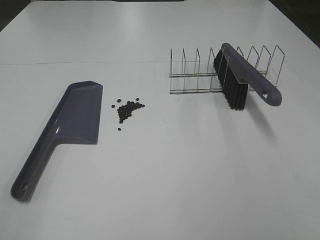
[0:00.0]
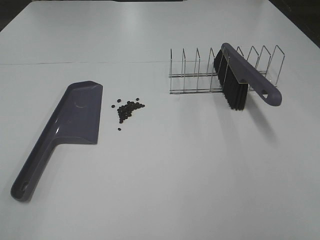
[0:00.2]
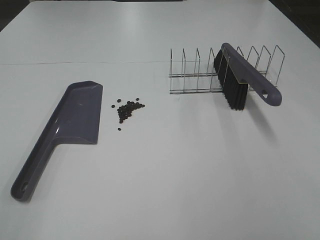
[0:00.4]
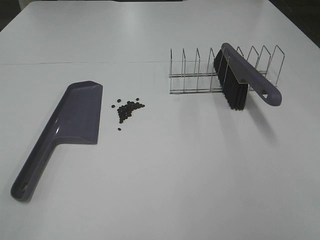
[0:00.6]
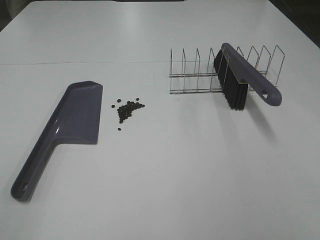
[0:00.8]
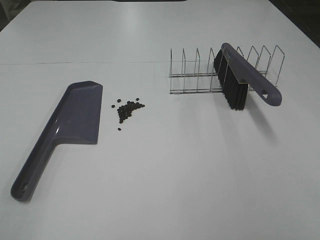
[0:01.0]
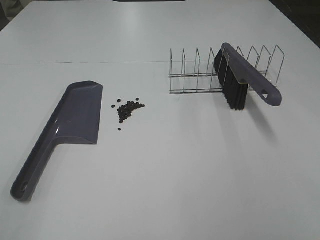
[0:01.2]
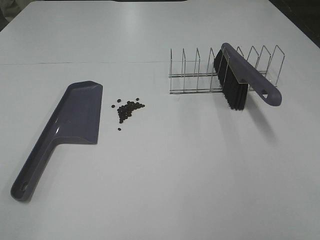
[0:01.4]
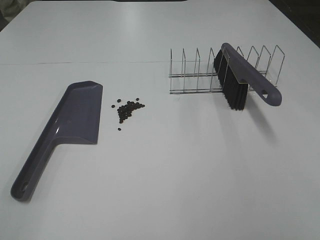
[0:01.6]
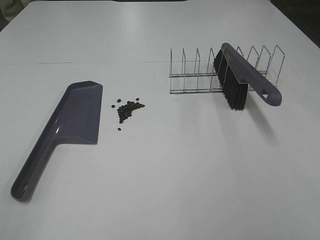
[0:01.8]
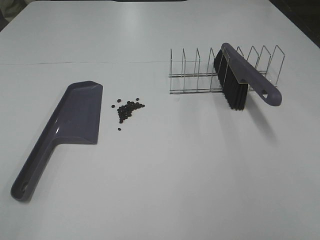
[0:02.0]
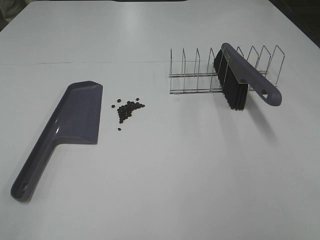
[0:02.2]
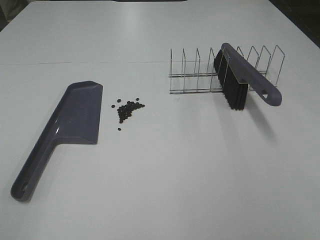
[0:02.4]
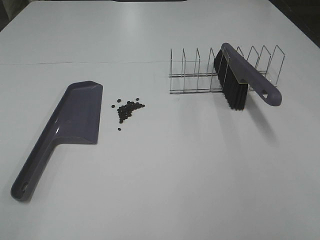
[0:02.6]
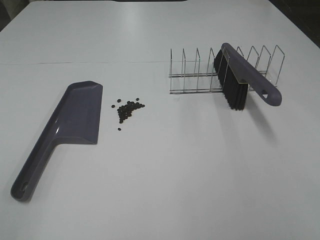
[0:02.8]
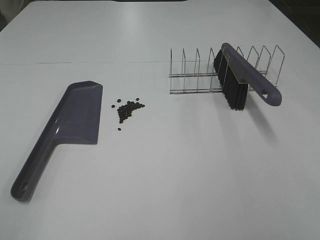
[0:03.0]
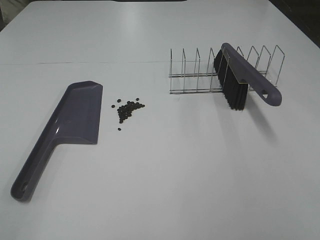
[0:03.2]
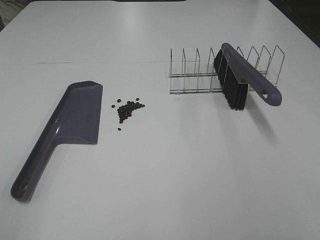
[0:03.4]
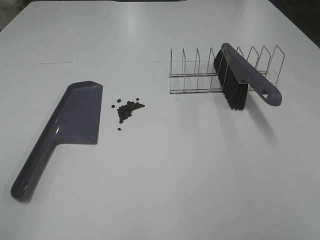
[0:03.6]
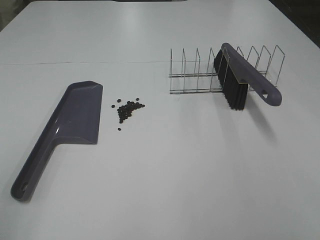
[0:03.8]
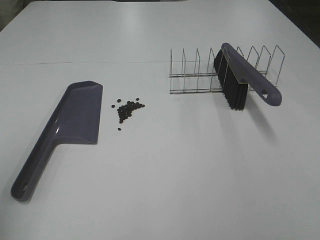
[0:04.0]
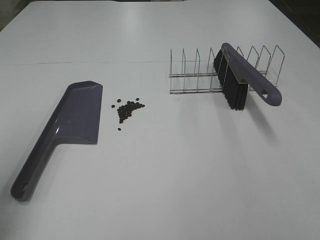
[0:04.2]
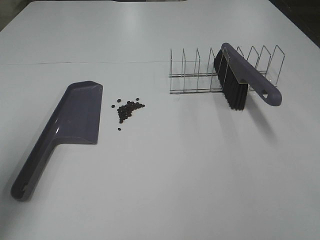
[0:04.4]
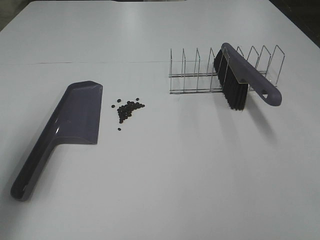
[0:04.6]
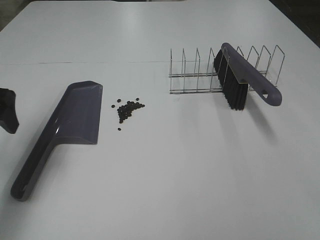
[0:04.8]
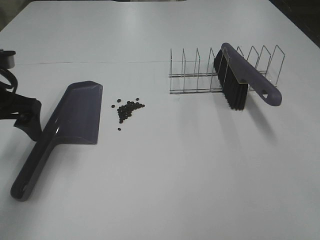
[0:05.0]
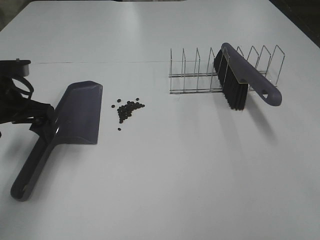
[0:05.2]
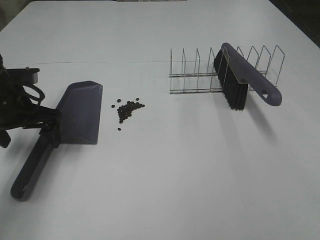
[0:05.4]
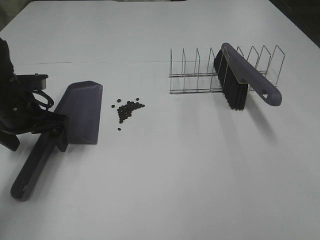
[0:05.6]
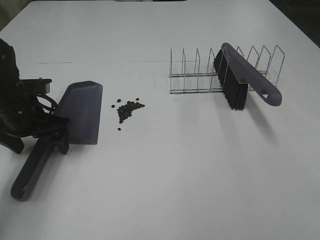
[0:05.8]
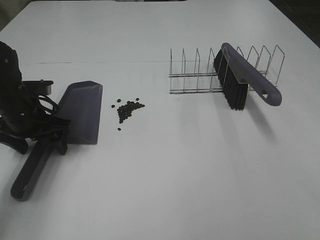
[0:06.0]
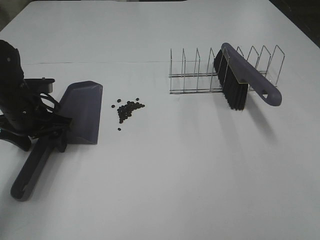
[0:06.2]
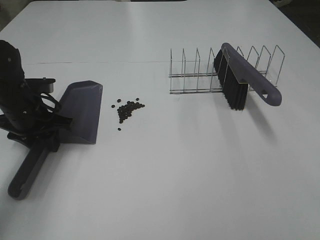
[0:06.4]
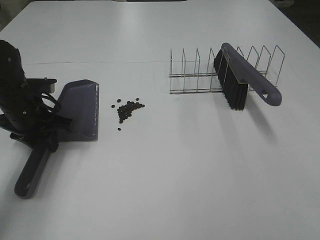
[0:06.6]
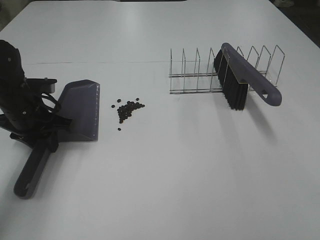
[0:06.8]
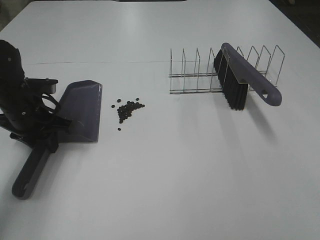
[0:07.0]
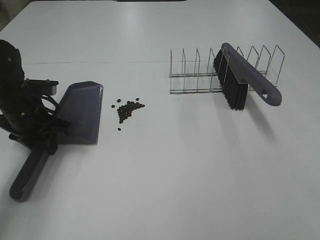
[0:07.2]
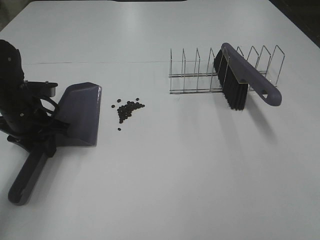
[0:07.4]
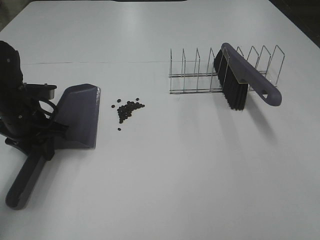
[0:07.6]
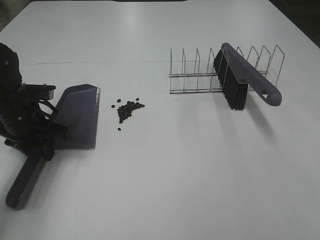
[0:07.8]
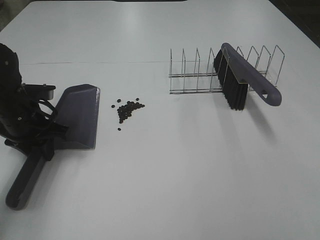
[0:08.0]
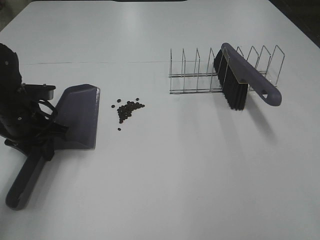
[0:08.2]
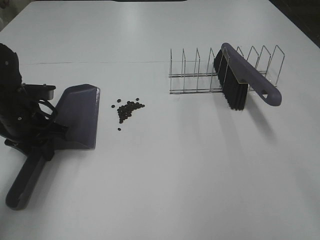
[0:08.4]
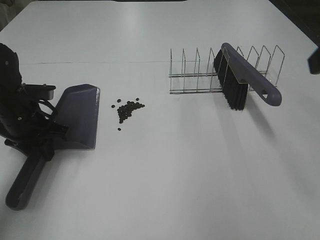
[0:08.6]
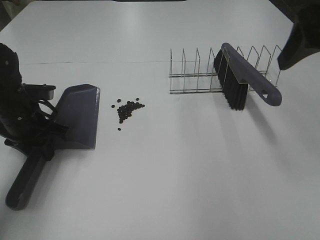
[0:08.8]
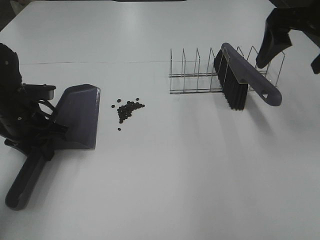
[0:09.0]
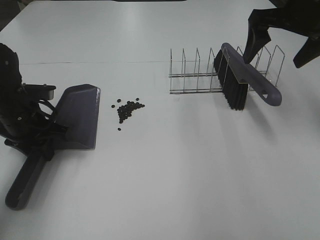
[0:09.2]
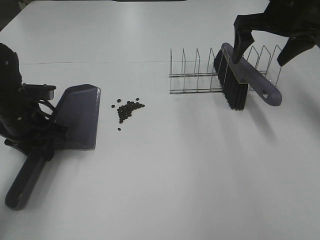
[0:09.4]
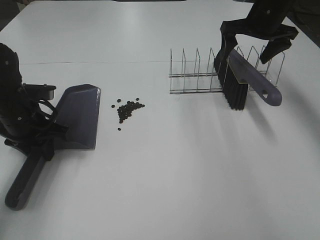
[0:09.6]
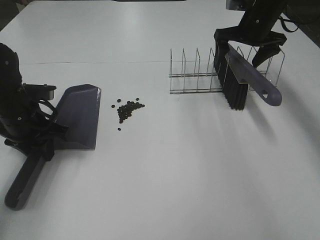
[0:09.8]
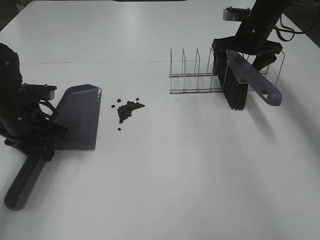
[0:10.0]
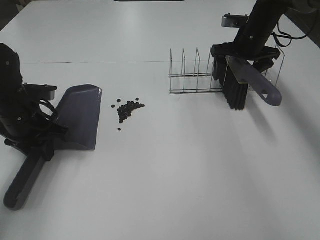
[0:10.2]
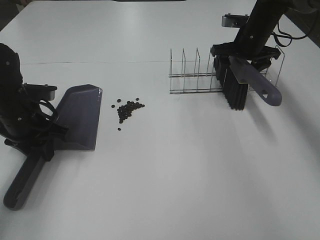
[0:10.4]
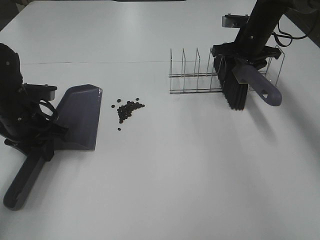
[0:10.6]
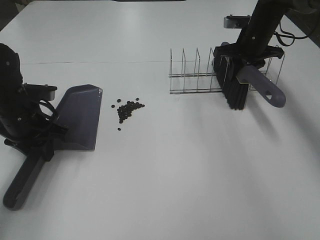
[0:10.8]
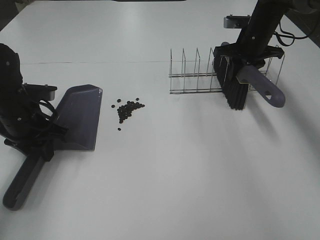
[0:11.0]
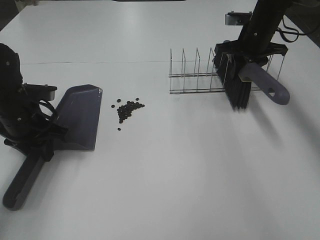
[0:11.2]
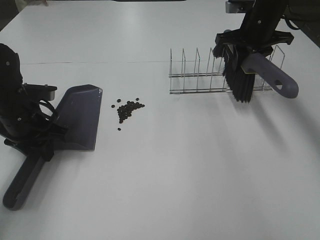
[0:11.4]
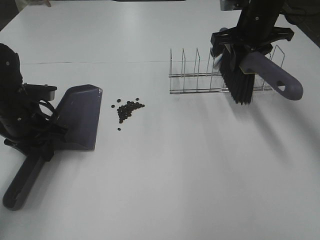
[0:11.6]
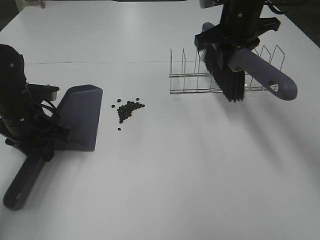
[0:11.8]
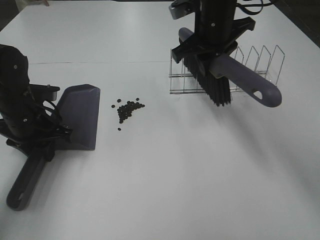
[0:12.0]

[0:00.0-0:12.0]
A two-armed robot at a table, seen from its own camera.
Task of the whole recording: Sweep Coffee Bean.
Step, 0.0 to 6.6 s: Left hand: grab the dustpan.
Step, 8.0 to 11.0 s: Right hand:grab the broom.
0.0 to 3.0 s: Both grippers stay about where they are.
3.0 to 4.4 s: The left gripper is displaced forward by about 20 cm.
4.4 to 6.0 s: The left gripper is displaced downward, forward and to the right by roughly 25 cm.
6.0 to 7.6 s: The left gripper closes.
7.6 to 9.0 s: The right gripper heads forward, covering roughly 35 cm.
9.0 to 10.4 s: The right gripper shifts about 25 cm forward and downward.
10.4 to 12.0 s: The right gripper heads to the left, backward and upward, covering approximately 20 cm, and closes its fingers.

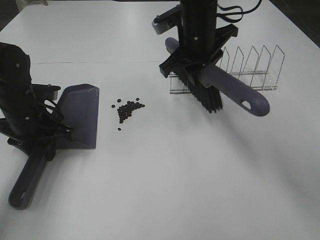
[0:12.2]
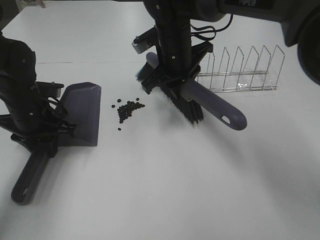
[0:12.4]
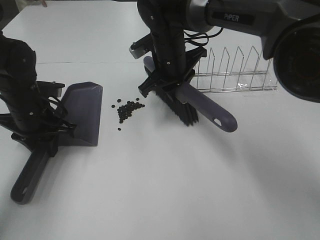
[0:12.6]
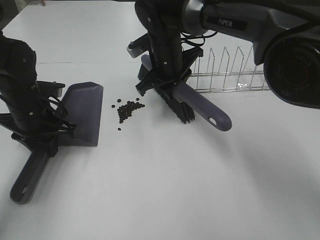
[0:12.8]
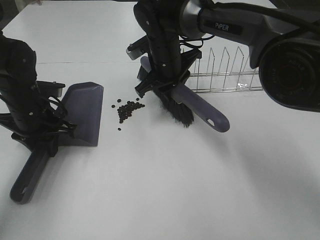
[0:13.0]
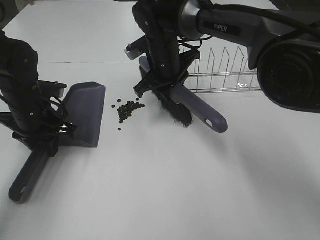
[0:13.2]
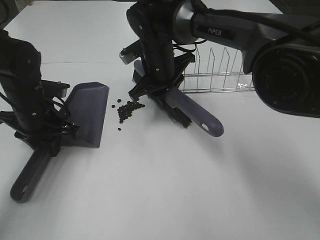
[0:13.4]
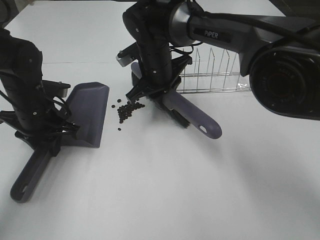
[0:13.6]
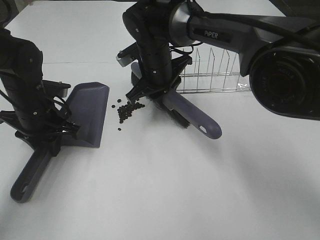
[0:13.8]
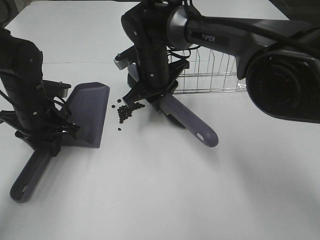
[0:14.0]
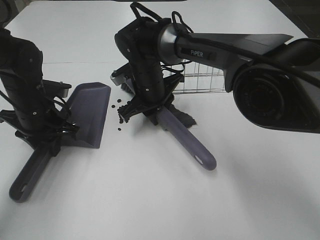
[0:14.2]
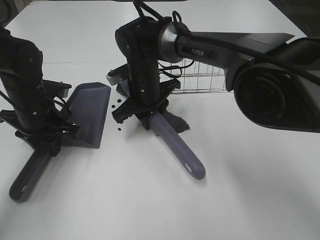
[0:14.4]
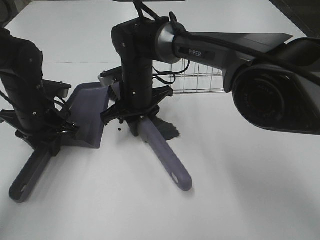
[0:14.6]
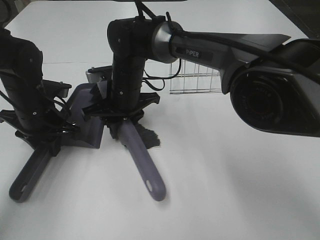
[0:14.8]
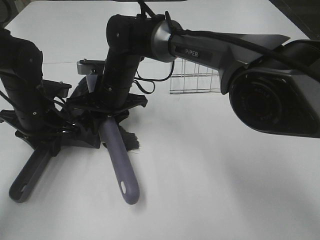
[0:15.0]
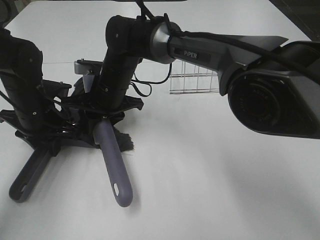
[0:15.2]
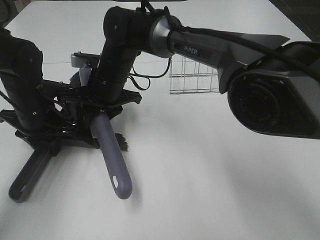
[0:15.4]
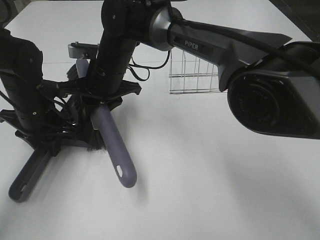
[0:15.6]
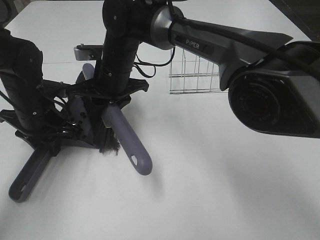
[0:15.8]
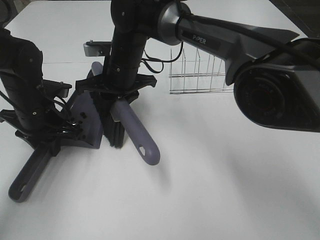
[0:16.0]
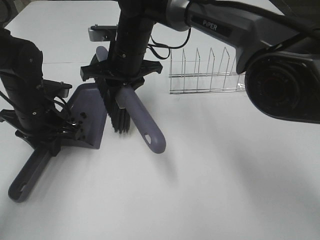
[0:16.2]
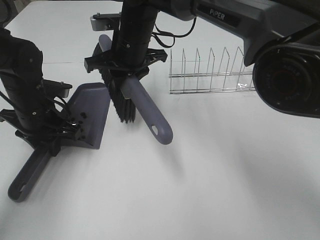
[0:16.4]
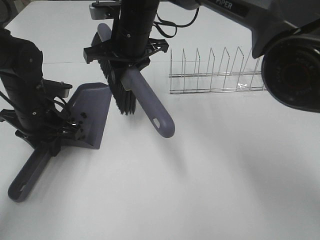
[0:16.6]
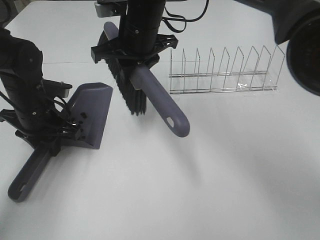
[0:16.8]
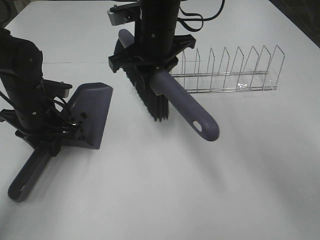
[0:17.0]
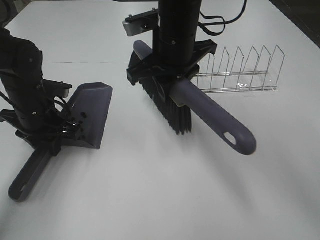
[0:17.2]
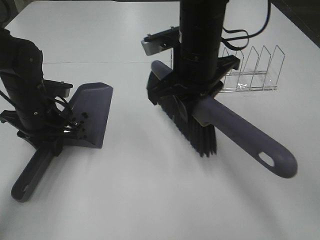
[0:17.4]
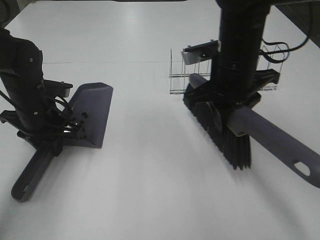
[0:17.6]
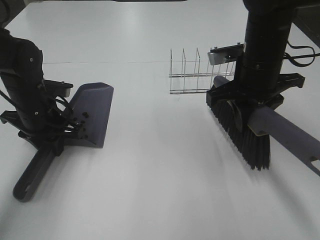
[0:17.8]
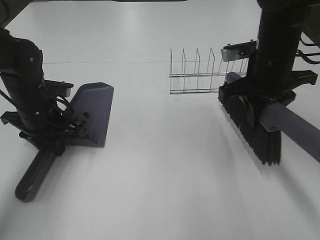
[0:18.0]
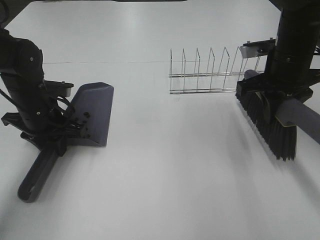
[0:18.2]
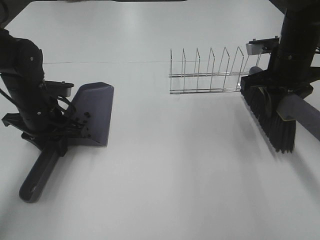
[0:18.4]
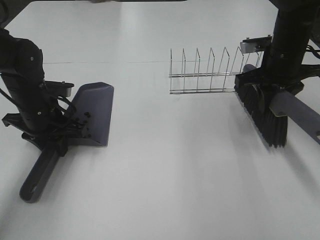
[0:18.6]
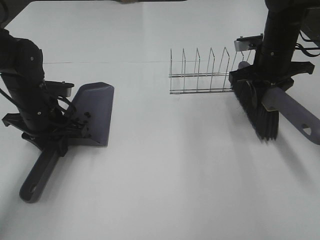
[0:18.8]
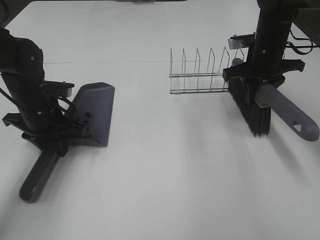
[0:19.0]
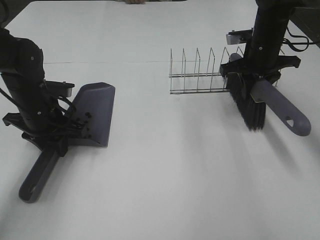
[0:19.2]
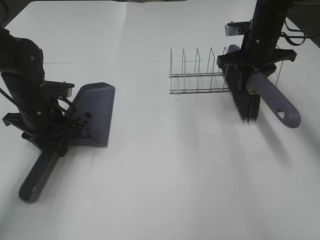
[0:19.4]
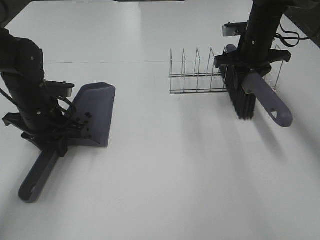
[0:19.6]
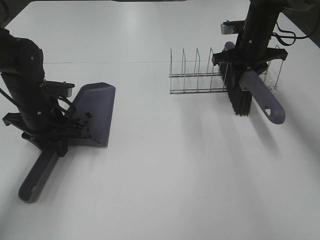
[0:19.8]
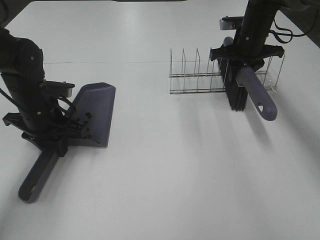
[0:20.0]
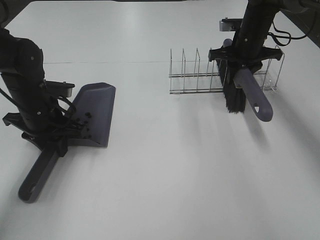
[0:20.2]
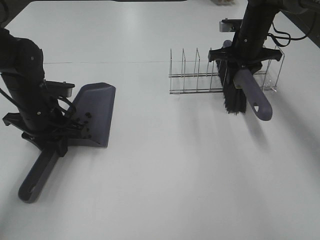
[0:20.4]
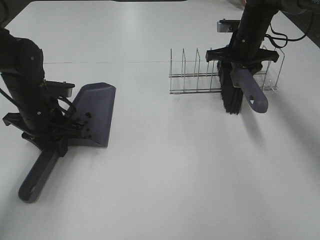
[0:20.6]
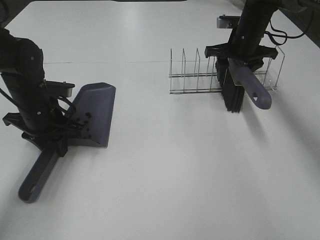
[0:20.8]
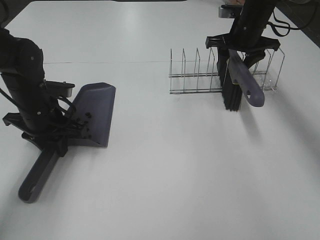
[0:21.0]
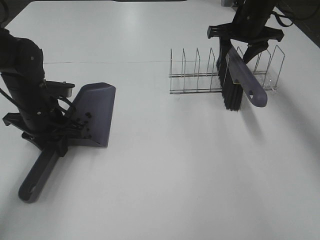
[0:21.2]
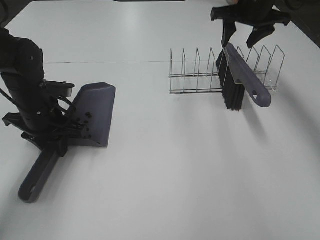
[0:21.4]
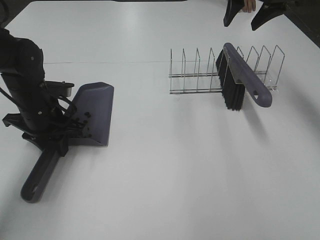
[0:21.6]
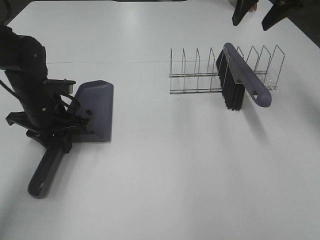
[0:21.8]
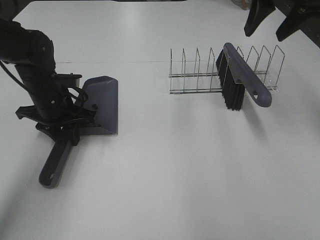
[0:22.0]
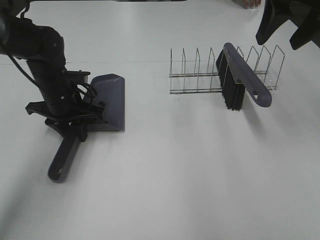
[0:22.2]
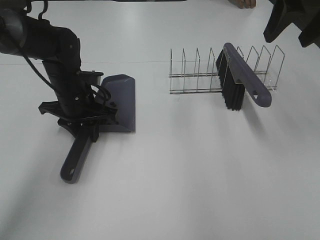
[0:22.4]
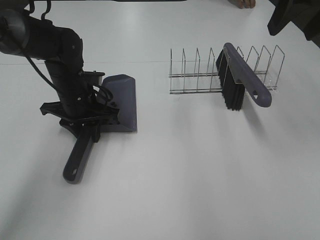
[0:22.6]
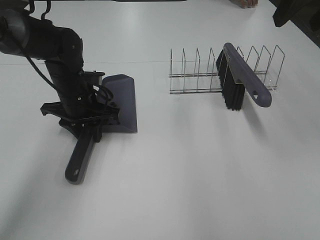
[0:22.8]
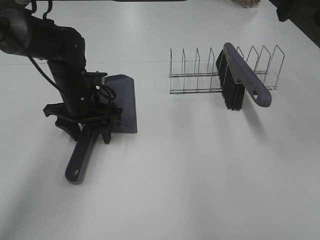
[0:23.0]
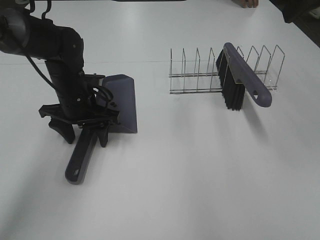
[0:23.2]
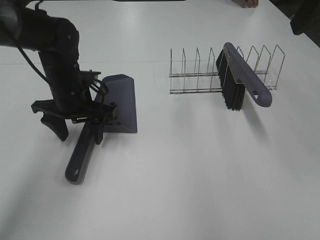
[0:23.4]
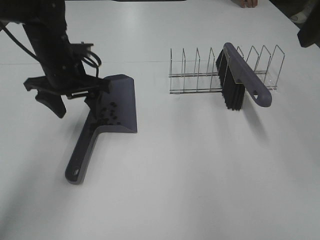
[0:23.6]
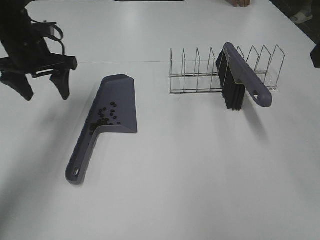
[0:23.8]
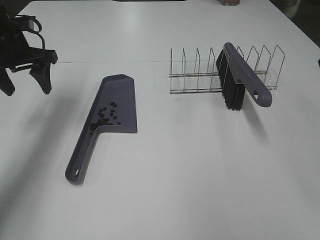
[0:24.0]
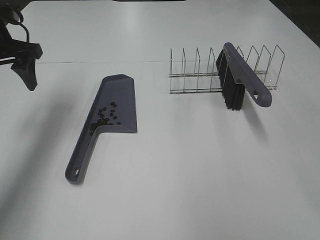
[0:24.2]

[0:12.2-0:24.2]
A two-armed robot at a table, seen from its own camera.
Task of the whole recording: Sweep Coffee Bean.
Step, 12.2 to 16.4 s: Right hand:sweep the coffee beans into the dustpan.
Step, 16.6 to 20.8 s: Right hand:place the broom on the rack.
Step, 21.0 to 23.4 s: Left hand:place the dustpan on the table.
12.2 to 13.8 s: The right gripper goes about 10 cm downward and to the left.
13.8 to 15.2 s: The right gripper shifts roughly 10 cm to the left.
15.2 to 16.6 s: The right gripper heads upward, covering roughly 10 cm.
16.6 to 18.2 s: The right gripper heads to the right, covering roughly 25 cm.
18.2 to 19.8 s: The right gripper heads forward, covering approximately 15 cm.
19.8 to 21.2 s: The right gripper opens up.
21.2 to 22.6 s: The right gripper moves backward and upward, approximately 25 cm. The left gripper shifts some 5 cm to the right.
22.6 to 24.2 s: The left gripper shifts about 20 cm upward and to the left, and opens up. Meanwhile the right gripper travels backward by about 15 cm.
